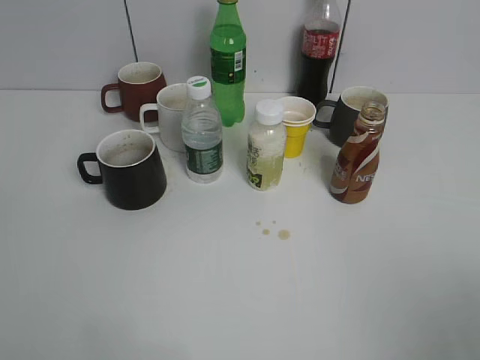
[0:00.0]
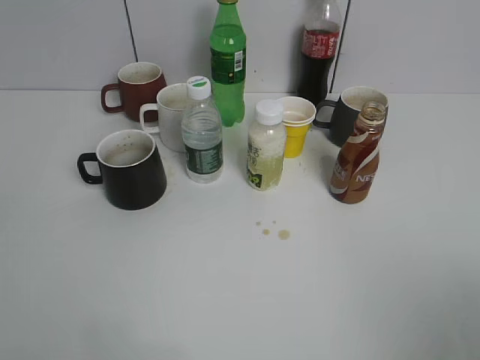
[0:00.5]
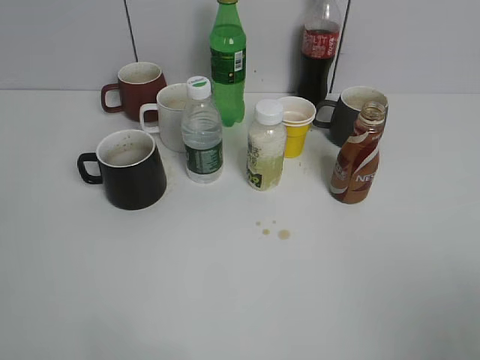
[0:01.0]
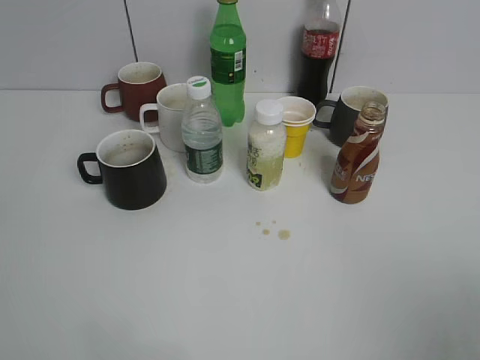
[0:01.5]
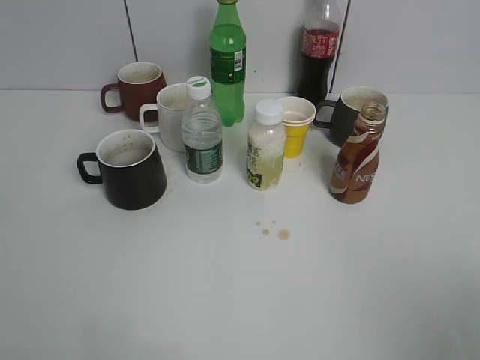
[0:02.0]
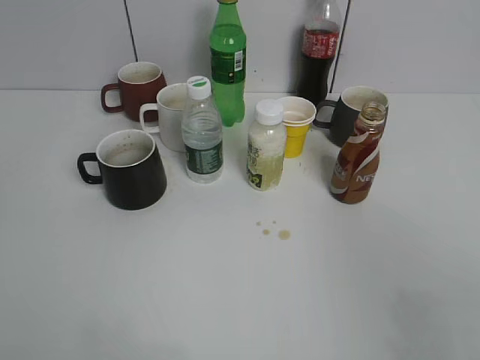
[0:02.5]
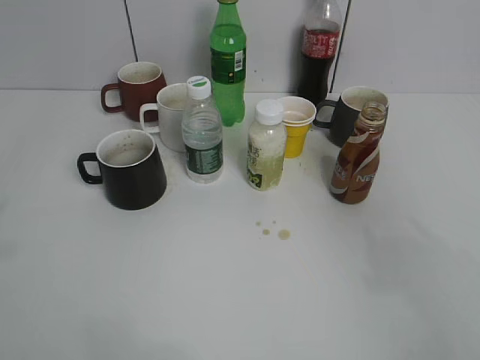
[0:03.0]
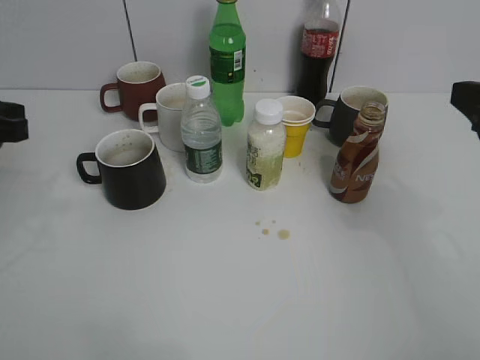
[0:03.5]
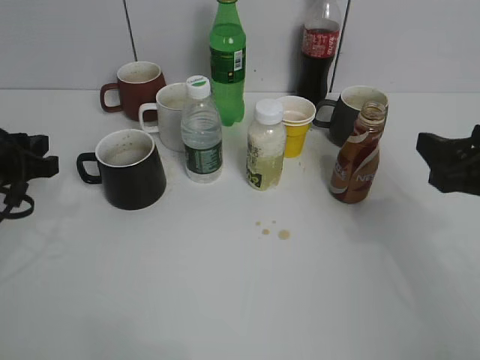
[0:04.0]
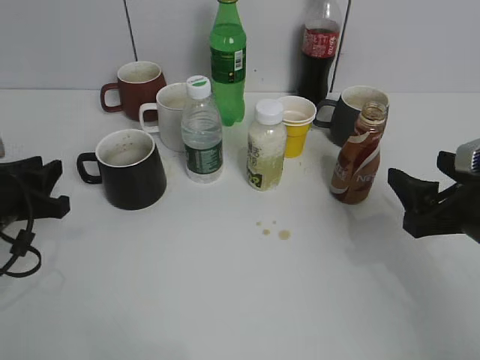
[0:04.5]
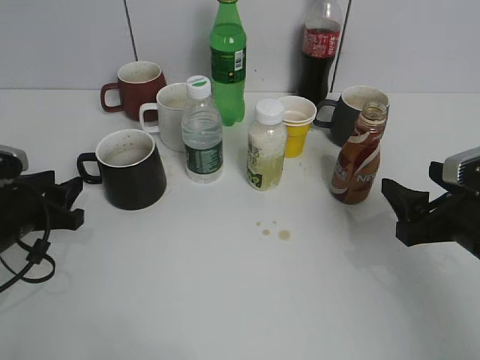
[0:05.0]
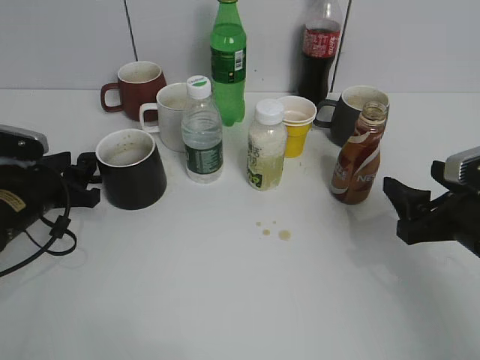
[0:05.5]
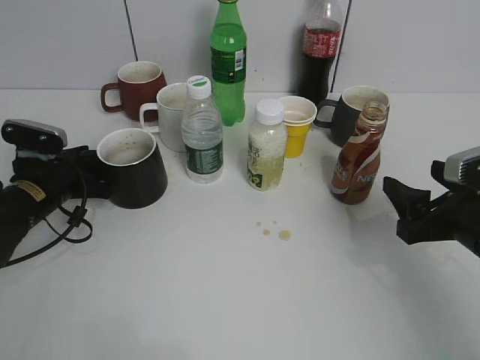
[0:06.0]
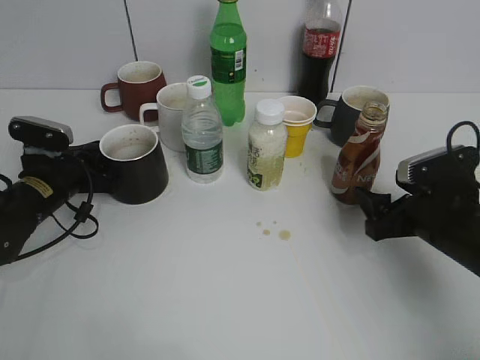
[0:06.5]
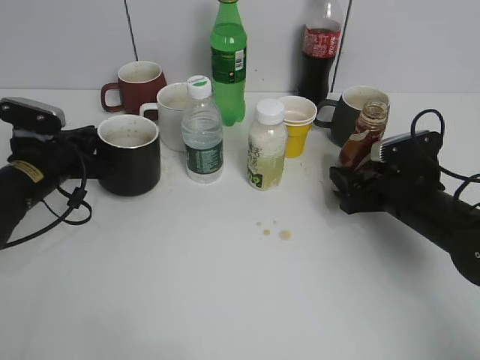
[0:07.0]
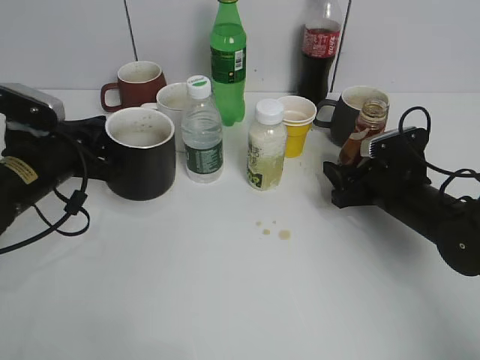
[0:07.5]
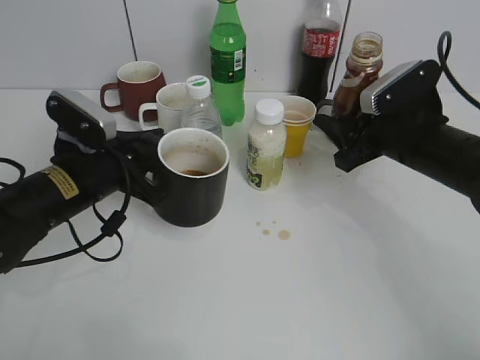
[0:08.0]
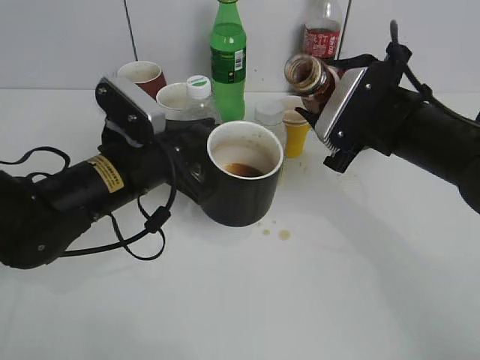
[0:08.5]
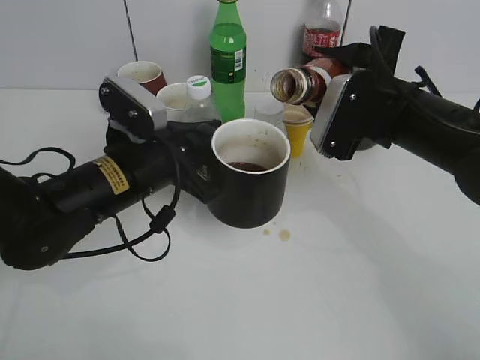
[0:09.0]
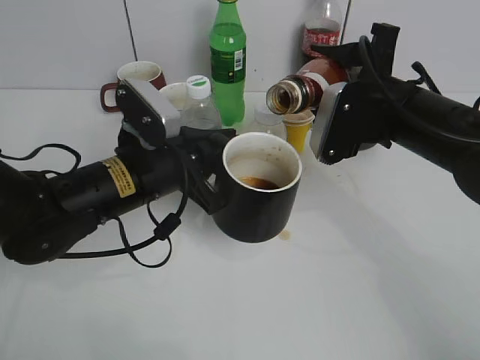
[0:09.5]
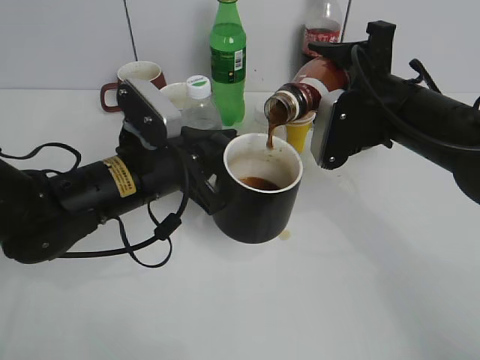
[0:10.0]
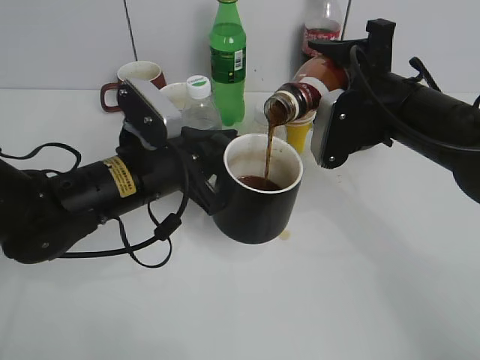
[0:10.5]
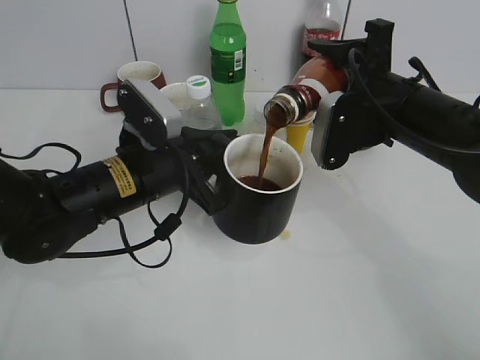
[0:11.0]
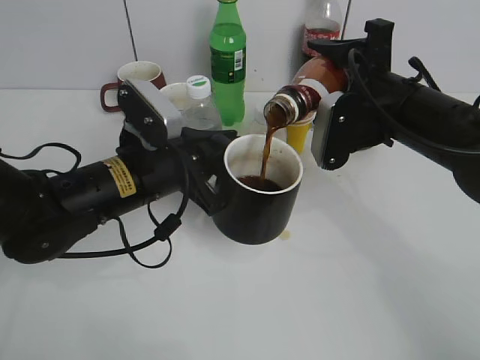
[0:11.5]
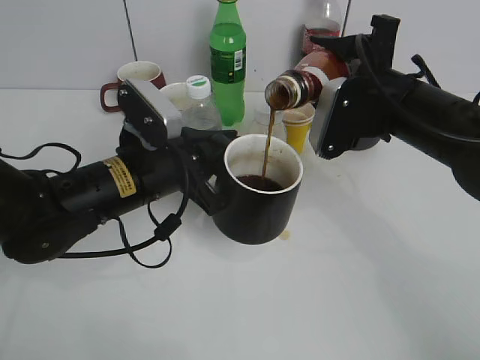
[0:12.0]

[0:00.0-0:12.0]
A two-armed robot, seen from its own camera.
Step, 0:02.0 to 0:06.0: Grasp the black cup with left gripper.
Step, 0:06.5 to 0:07.0: Lift the black cup with left gripper.
0:02.0 to 0:04.0: The grippers both shift forward and downward by approximately 25 cm.
0:04.0 to 0:06.0: The left gripper heads downward and forward, covering some 10 cm. Meanwhile the right gripper shifts roughly 5 cm downward.
0:06.0 to 0:08.0: The right gripper shifts roughly 10 cm forward and to the left, and closes; the left gripper shifts approximately 10 cm to the right and upward, and closes.
0:08.0 to 0:10.0: The left gripper travels to the right by some 5 cm. Meanwhile the right gripper ends up some 5 cm from where it was.
0:10.0 to 0:12.0: The two grippers keep their place.

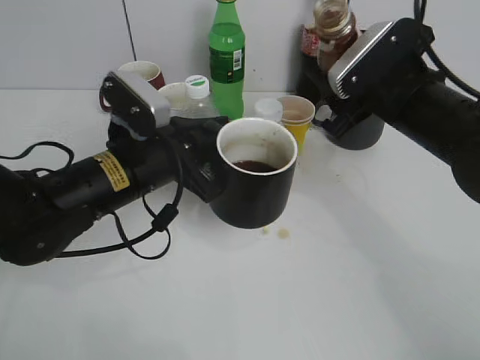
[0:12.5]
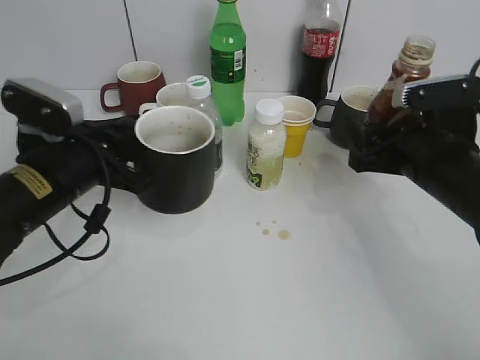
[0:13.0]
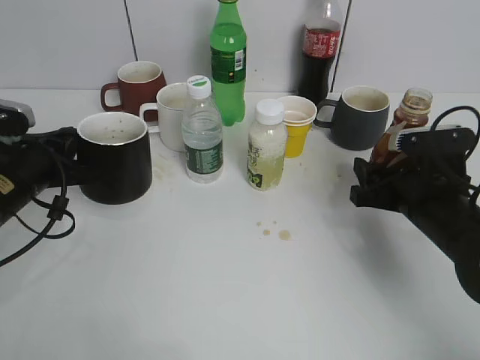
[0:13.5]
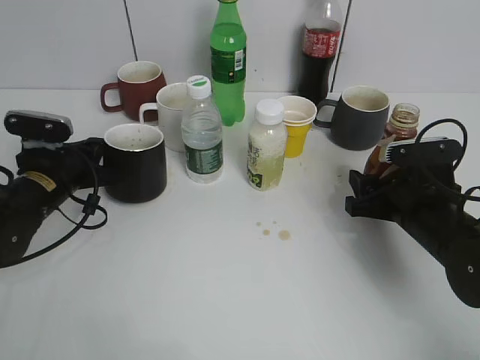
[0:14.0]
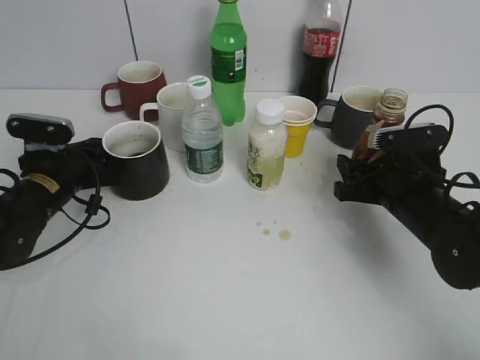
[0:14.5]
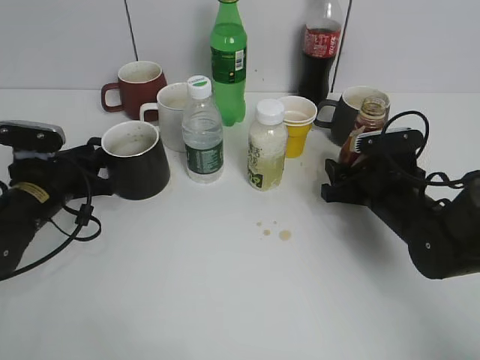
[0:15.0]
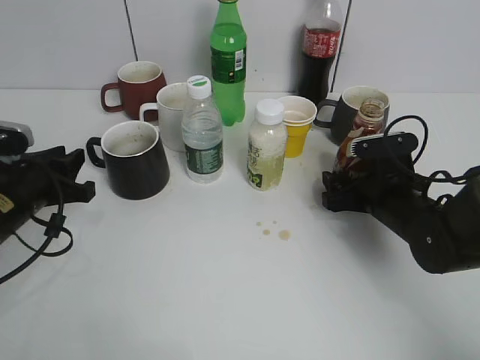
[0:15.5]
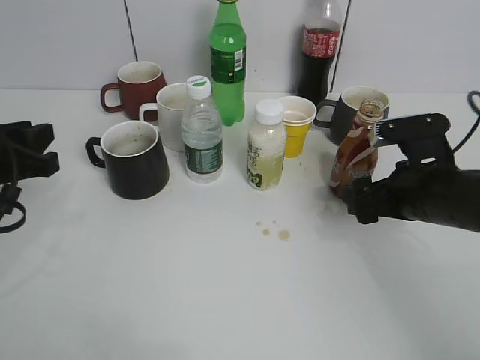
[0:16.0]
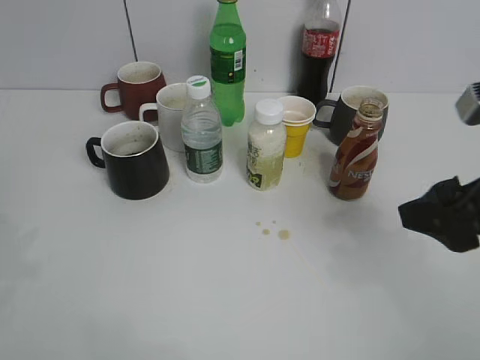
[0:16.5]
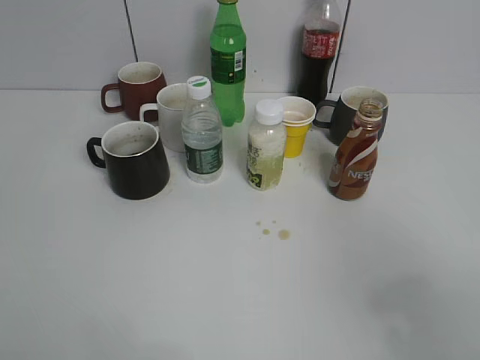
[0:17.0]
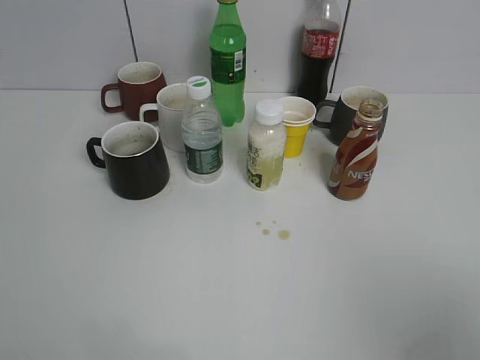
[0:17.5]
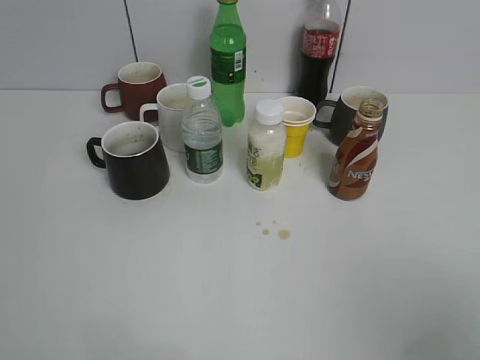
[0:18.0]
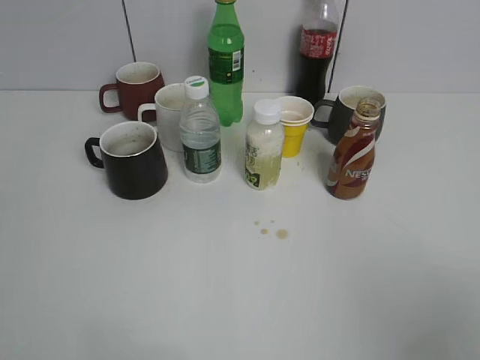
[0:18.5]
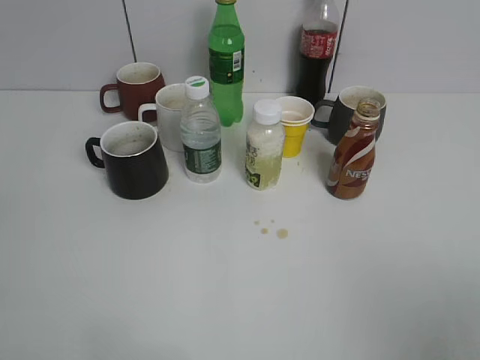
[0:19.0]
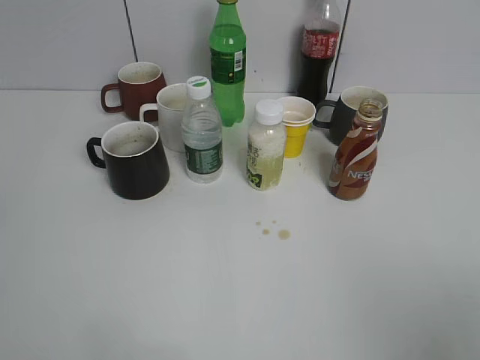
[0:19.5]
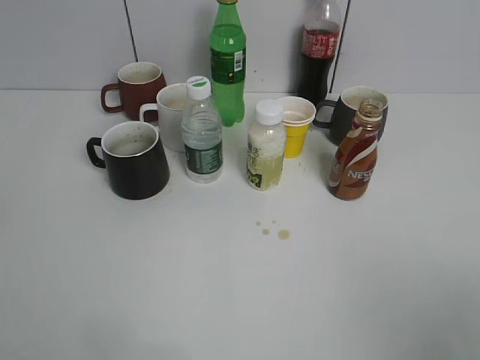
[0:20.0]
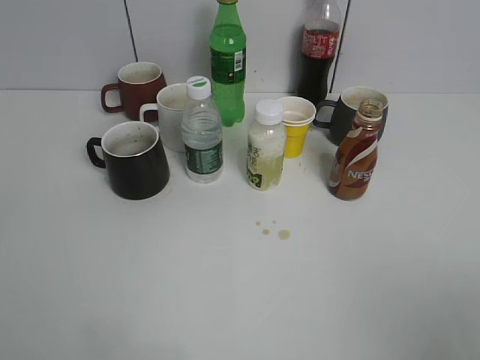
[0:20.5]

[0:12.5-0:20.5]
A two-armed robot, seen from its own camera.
Step, 0:12.5 to 0:15.5: Place the coffee bottle on the table with right gripper.
0:12.5 to 0:14.5: The left gripper goes about 15 cm to the left, downward and forward; the right gripper shifts some 10 cm downward.
0:14.5 to 0:16.5: The left gripper is displaced upward and backward by roughly 30 cm; the right gripper is displaced upward and backward by some 20 cm, and opens up.
0:16.5 to 0:18.5: The two grippers go about 15 cm backward.
0:18.5 to 0:20.5: There are only small adjustments of the grippers.

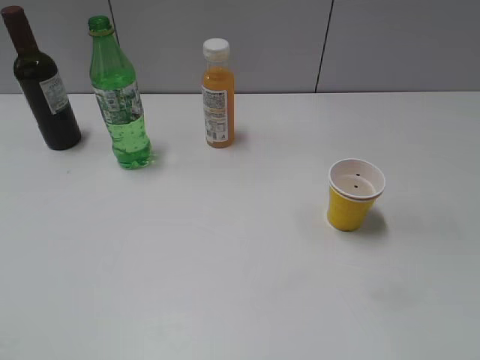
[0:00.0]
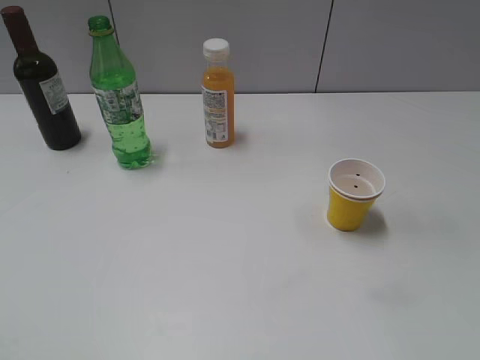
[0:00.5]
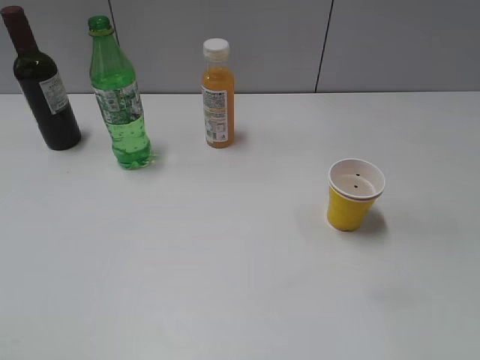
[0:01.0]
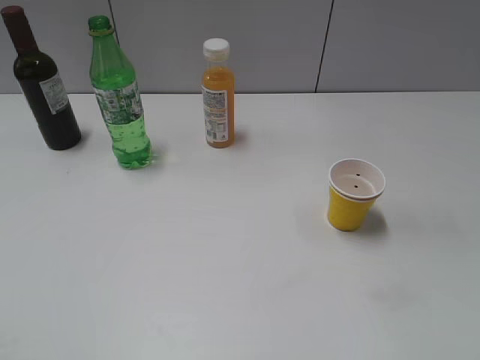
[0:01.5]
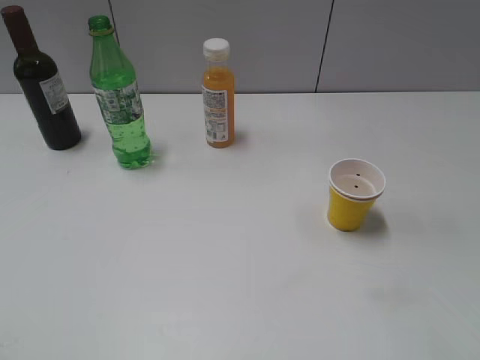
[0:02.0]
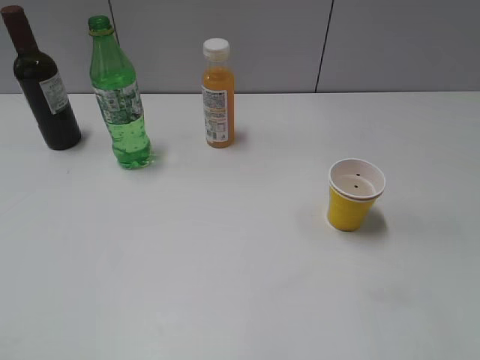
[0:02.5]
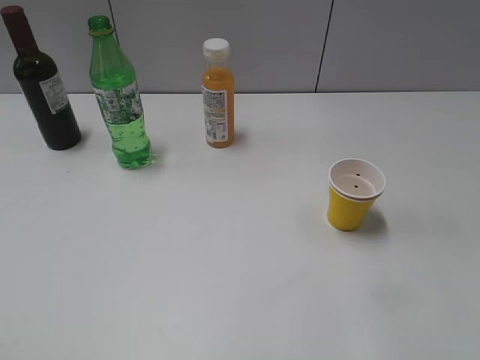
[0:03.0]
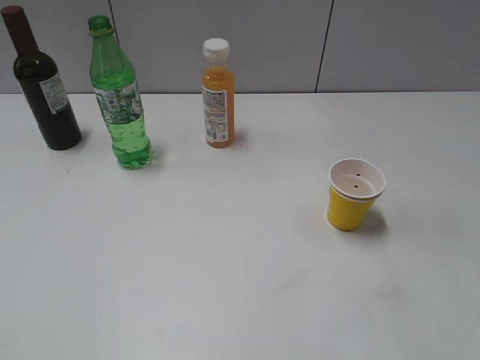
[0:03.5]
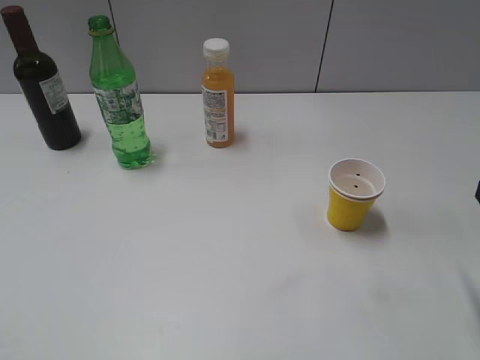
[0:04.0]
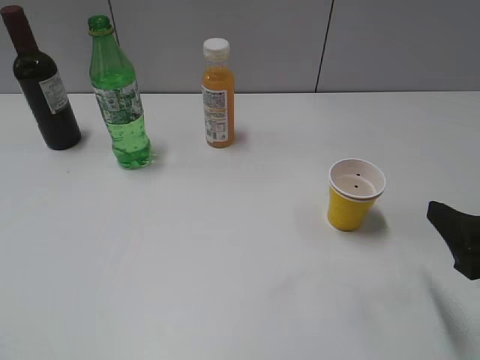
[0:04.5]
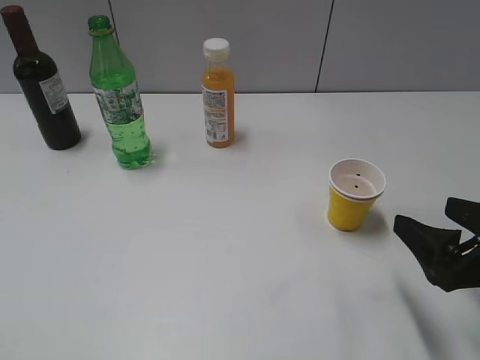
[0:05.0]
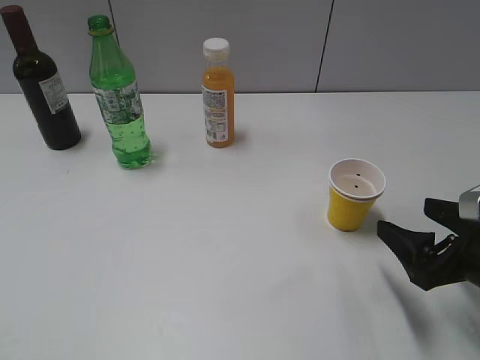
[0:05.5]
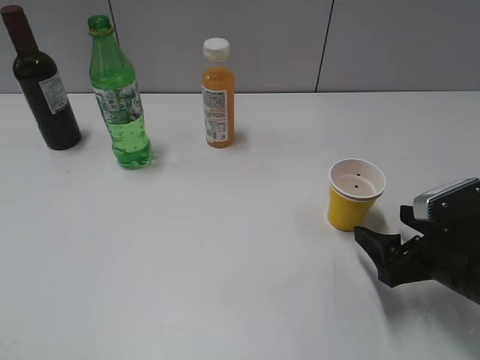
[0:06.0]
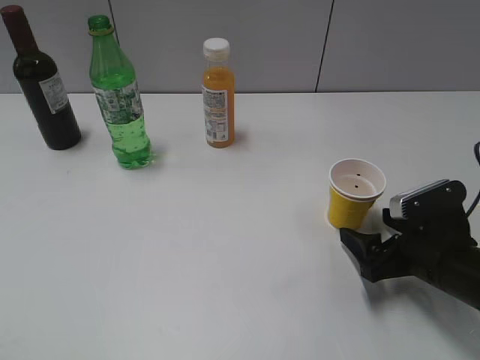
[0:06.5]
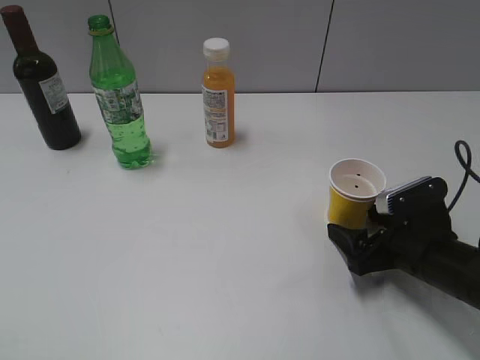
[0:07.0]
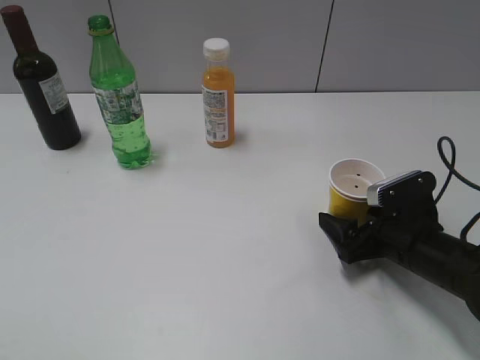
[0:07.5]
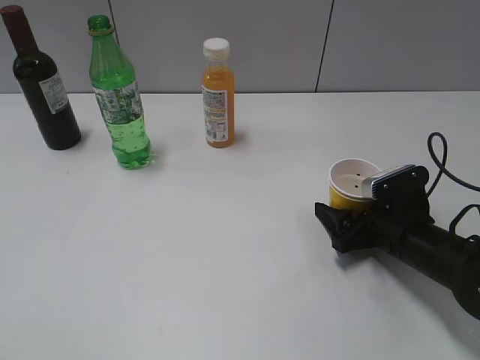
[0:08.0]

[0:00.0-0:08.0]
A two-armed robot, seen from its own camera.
0:04.0 to 0:06.0: The right gripper moves downward, forward and to the left, some 15 cm.
0:06.0 to 0:08.0: The right gripper moves forward and downward, about 10 cm.
